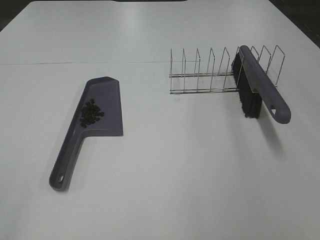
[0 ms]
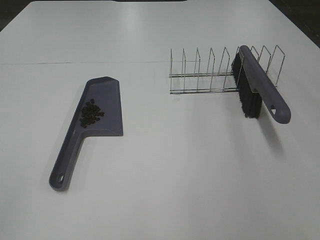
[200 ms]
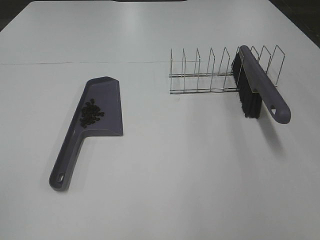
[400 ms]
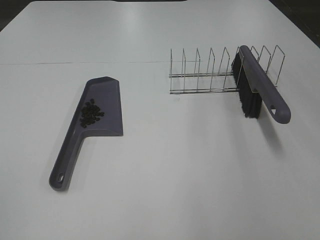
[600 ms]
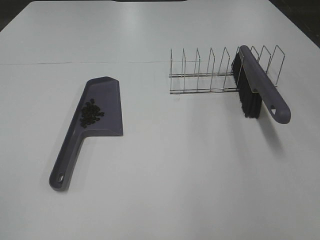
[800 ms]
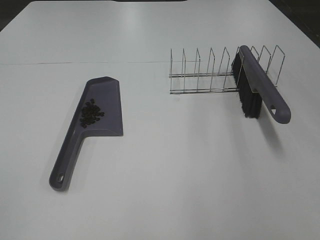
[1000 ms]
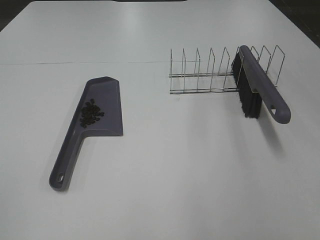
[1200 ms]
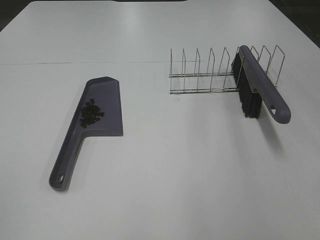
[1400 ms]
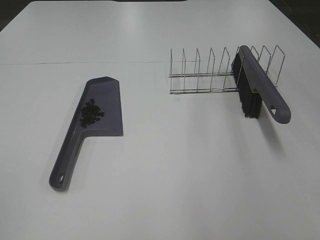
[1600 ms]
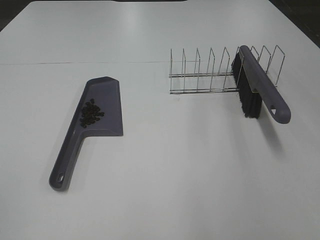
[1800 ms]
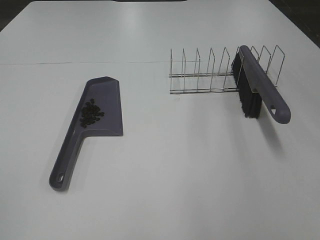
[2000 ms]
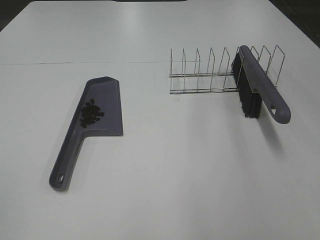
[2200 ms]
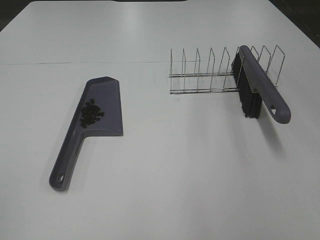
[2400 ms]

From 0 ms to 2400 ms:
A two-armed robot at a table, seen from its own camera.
Task of the whole recording: Sweep Coffee Bean.
From 1200 ms to 2400 ms: Neither gripper changes place.

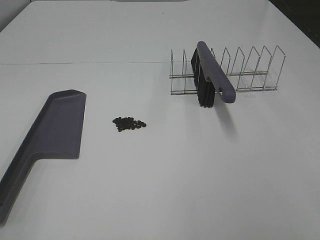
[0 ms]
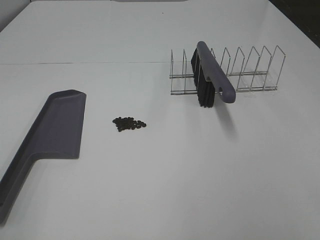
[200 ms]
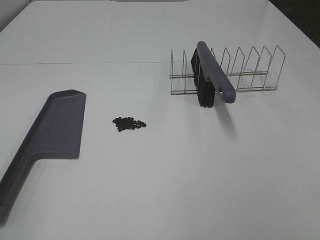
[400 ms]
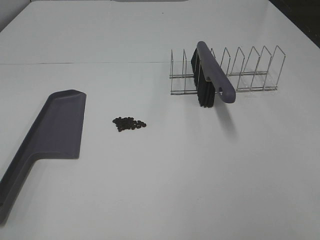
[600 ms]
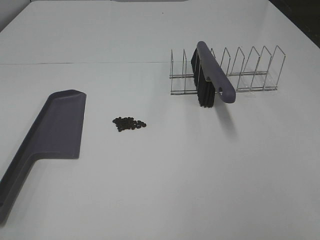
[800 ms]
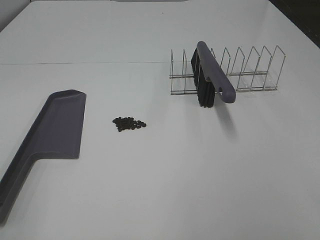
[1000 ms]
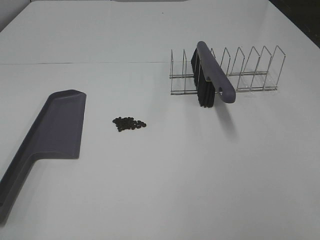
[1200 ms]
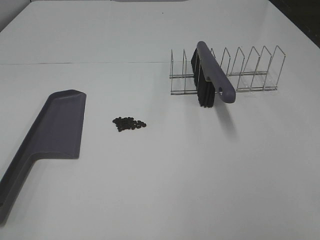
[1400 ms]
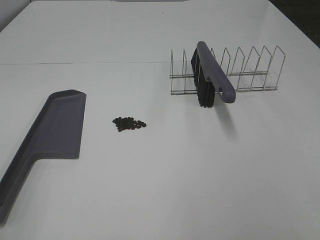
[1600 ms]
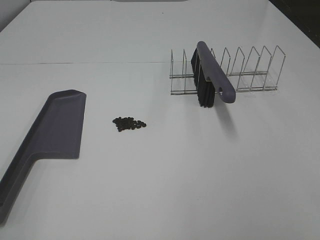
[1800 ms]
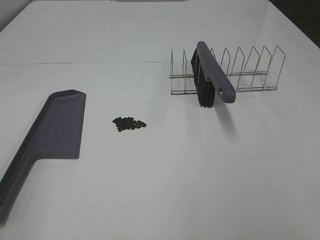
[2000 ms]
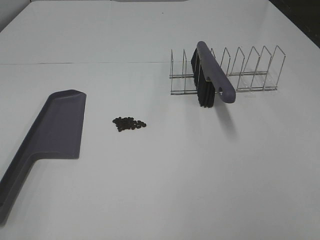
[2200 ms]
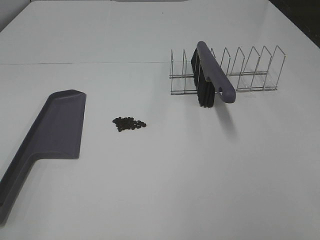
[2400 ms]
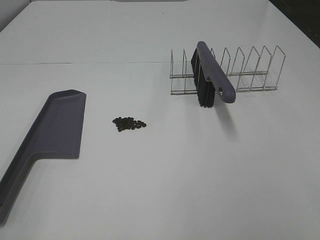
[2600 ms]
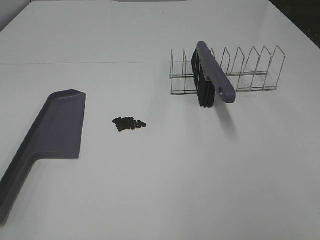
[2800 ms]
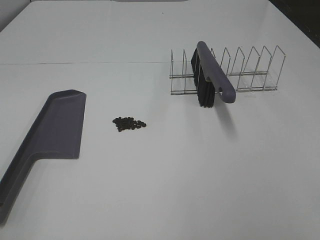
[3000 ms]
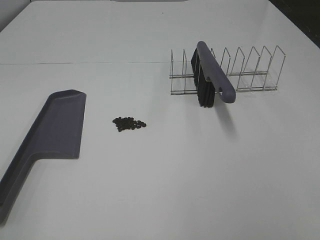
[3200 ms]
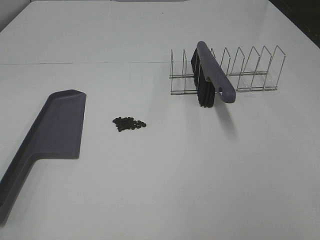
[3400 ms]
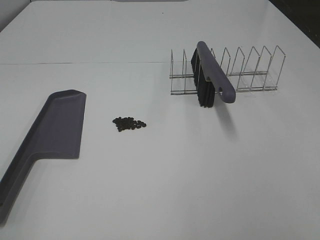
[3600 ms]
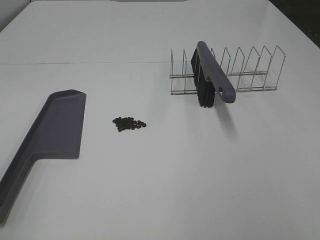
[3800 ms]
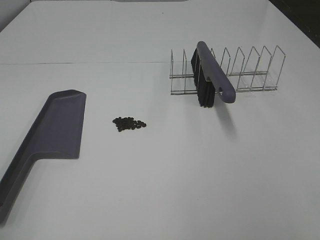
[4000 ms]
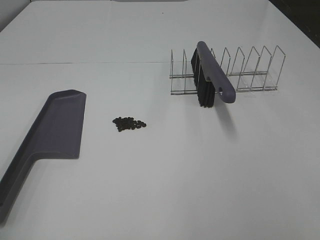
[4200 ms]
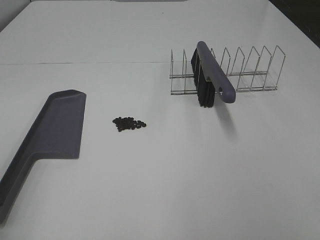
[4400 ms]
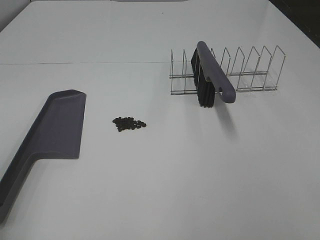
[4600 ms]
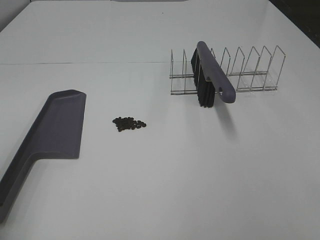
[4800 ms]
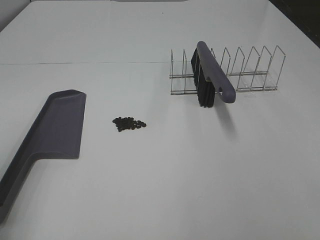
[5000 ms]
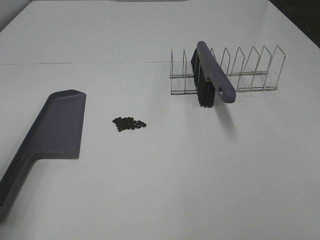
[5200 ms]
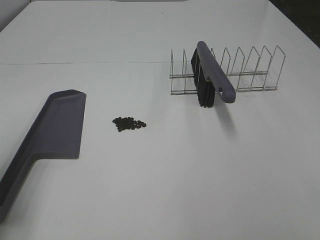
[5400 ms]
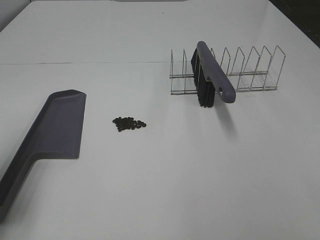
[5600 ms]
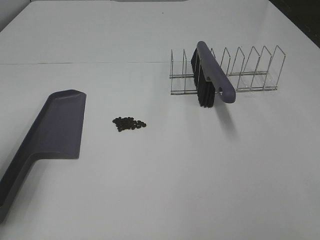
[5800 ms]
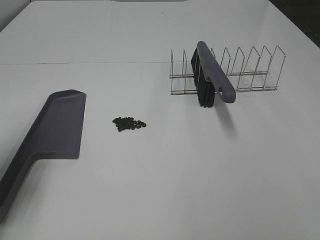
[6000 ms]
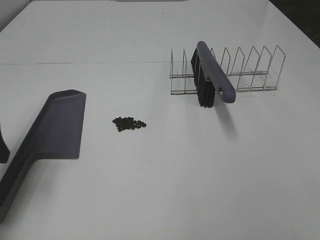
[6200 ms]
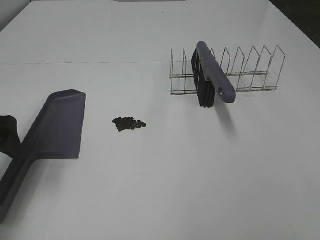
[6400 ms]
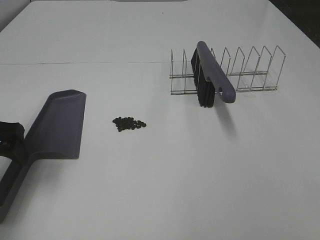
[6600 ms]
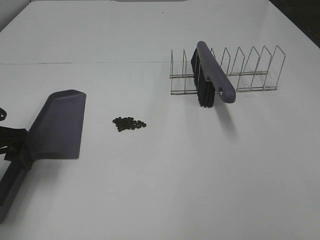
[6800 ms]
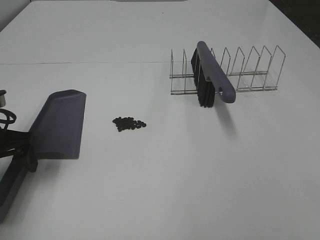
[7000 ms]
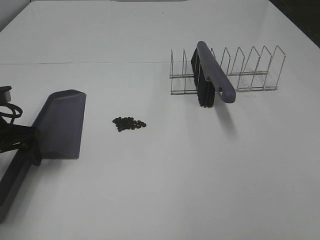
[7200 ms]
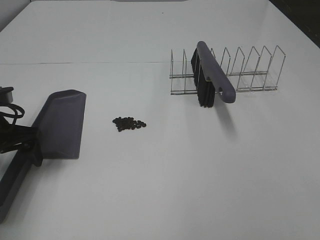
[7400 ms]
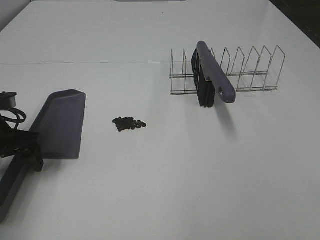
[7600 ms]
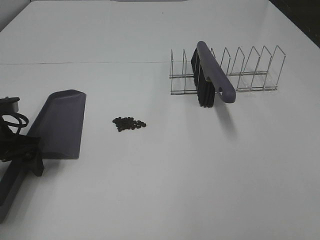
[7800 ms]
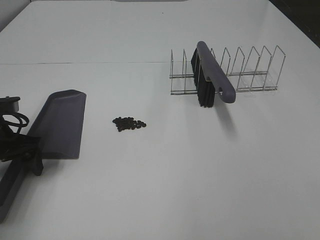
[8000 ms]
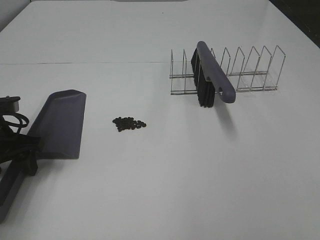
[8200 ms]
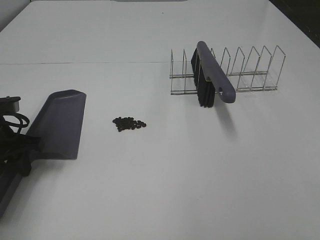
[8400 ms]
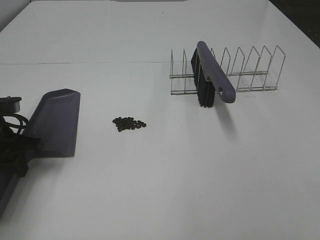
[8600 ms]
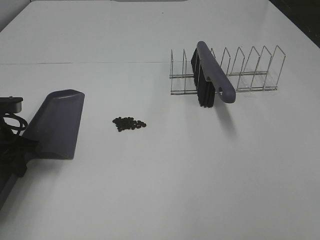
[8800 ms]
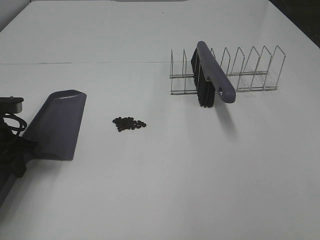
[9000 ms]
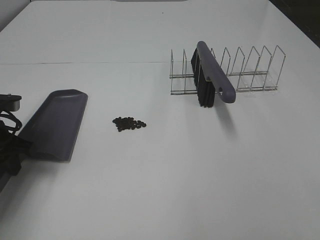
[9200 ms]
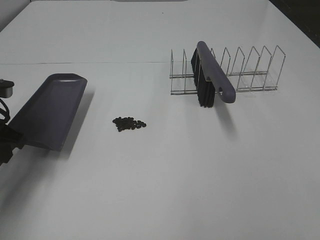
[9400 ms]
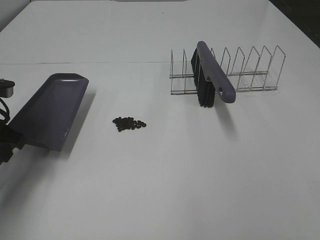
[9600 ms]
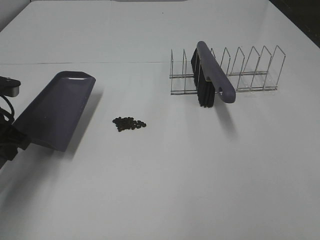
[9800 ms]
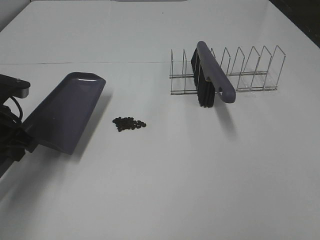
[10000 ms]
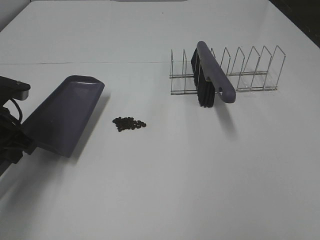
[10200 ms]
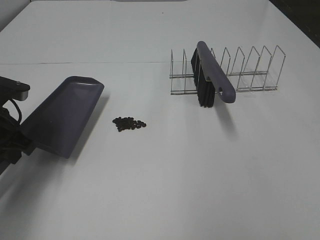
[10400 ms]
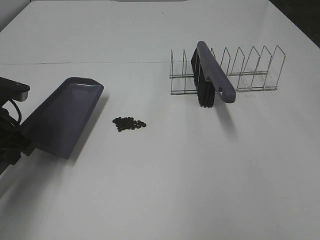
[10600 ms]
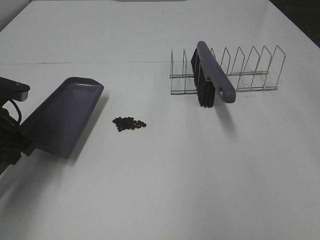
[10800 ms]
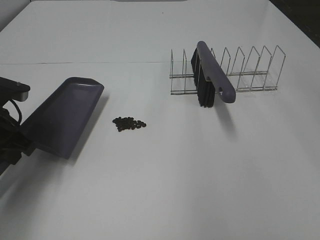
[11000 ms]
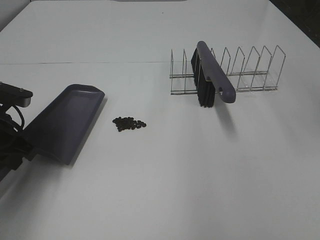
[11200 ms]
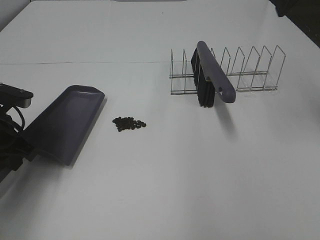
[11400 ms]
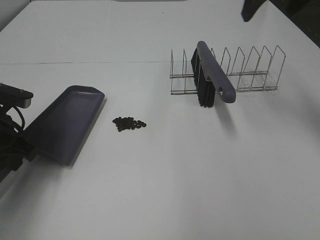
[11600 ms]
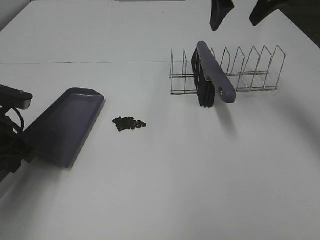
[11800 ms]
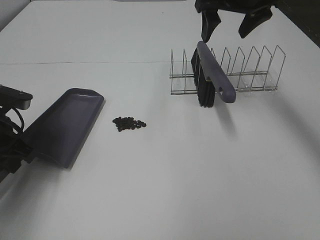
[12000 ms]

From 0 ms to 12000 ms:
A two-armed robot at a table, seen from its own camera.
Task of the whole recording: Sweep Coffee Bean.
Step, from 0 ms to 8600 ms: Left hand: grab the dustpan.
From 0 ms to 3000 ms: Both grippers stay about where they are.
From 4400 ms to 6000 ms: The left gripper travels forward and downward by some 20 cm.
From 6000 ms to 7600 ms: The left gripper moves downward and forward, approximately 10 cm.
From 7600 ms to 9000 ms: The left gripper closes its fingers.
From 10400 ms to 12000 ms: The right gripper is displaced forward by approximately 35 cm.

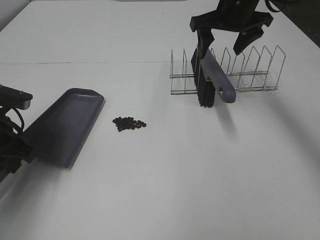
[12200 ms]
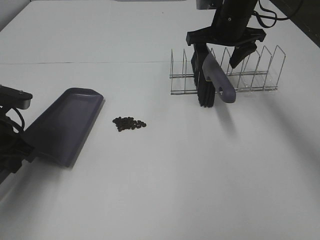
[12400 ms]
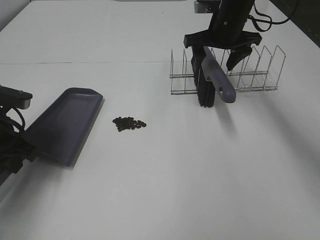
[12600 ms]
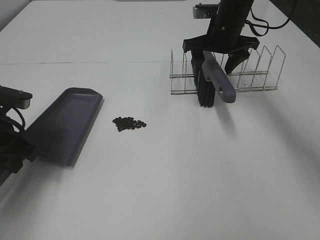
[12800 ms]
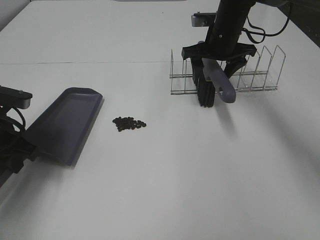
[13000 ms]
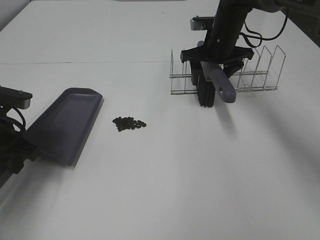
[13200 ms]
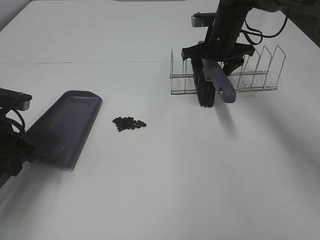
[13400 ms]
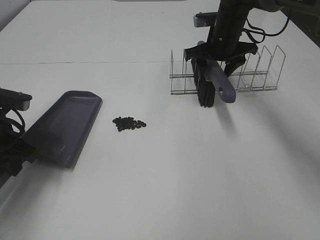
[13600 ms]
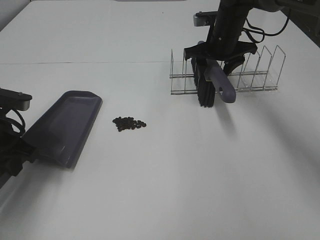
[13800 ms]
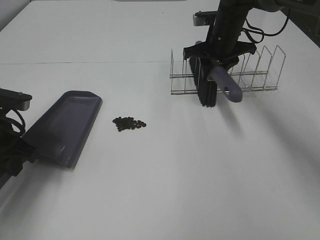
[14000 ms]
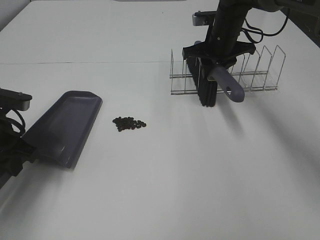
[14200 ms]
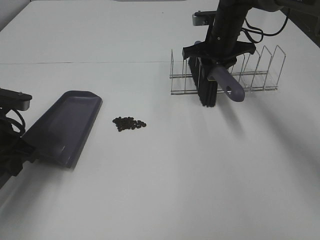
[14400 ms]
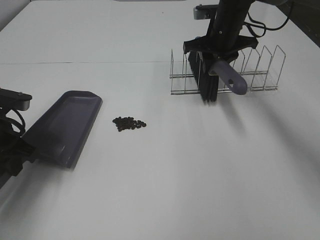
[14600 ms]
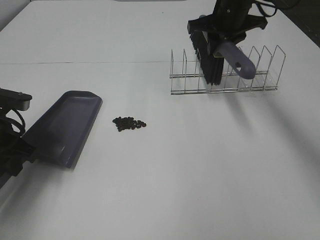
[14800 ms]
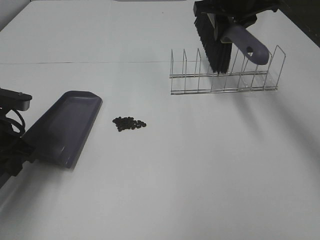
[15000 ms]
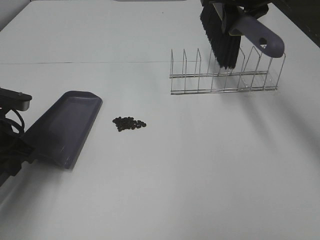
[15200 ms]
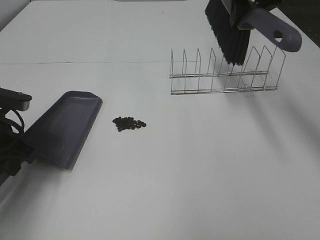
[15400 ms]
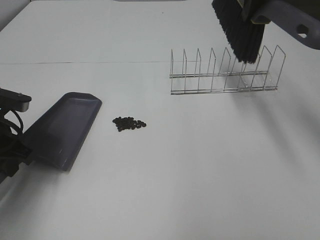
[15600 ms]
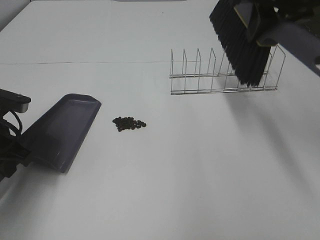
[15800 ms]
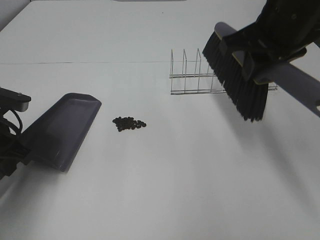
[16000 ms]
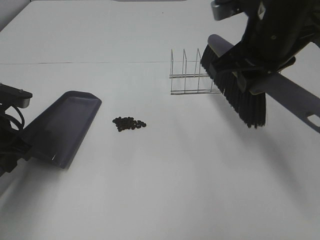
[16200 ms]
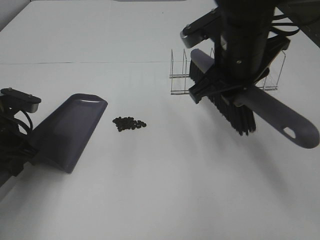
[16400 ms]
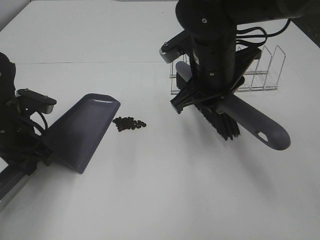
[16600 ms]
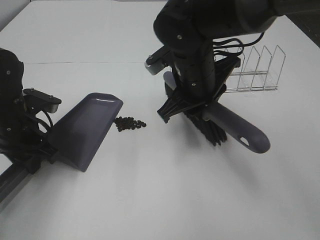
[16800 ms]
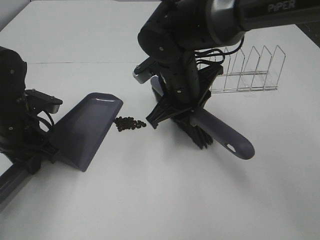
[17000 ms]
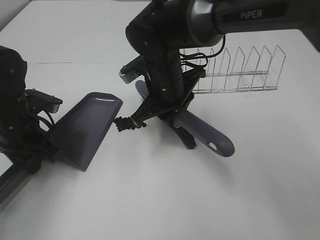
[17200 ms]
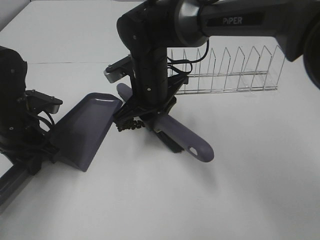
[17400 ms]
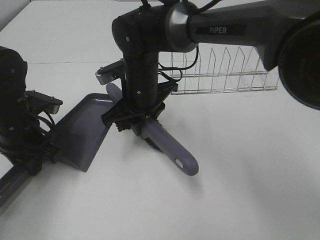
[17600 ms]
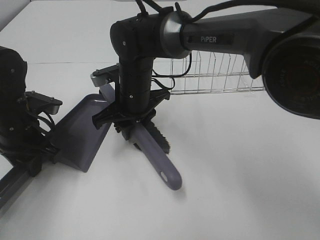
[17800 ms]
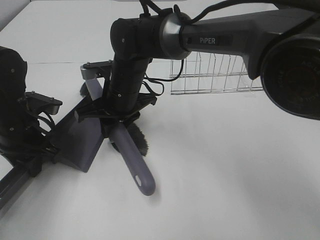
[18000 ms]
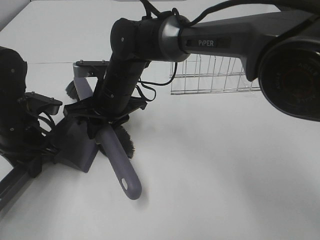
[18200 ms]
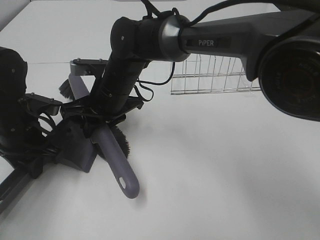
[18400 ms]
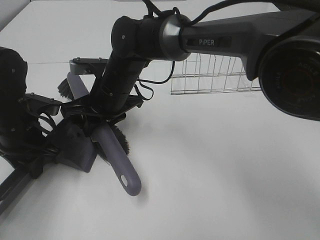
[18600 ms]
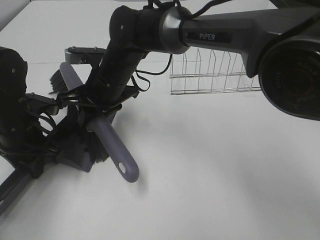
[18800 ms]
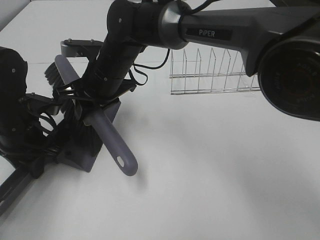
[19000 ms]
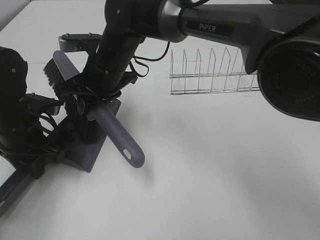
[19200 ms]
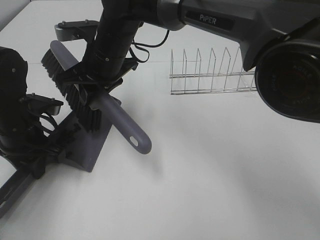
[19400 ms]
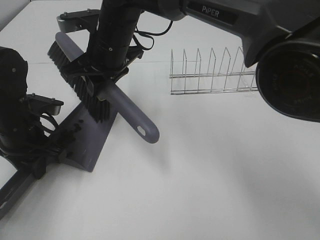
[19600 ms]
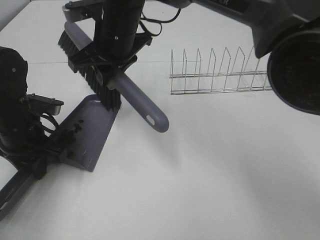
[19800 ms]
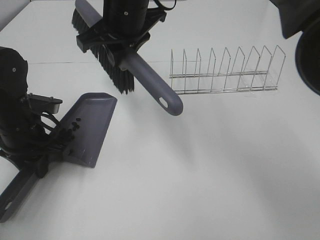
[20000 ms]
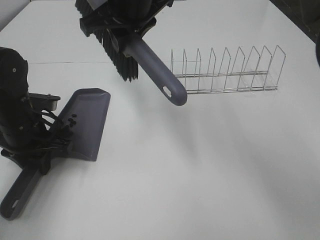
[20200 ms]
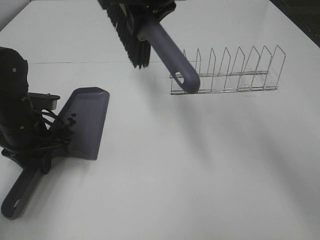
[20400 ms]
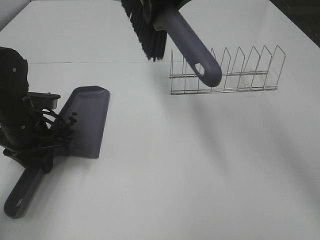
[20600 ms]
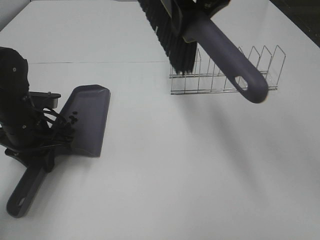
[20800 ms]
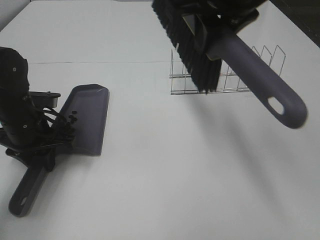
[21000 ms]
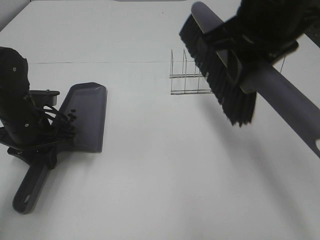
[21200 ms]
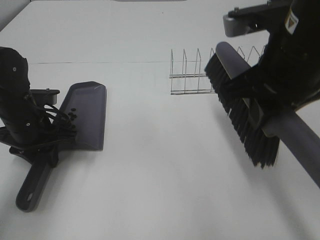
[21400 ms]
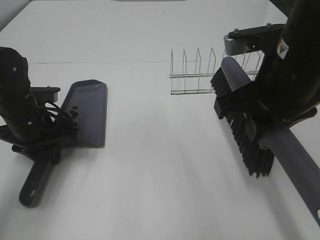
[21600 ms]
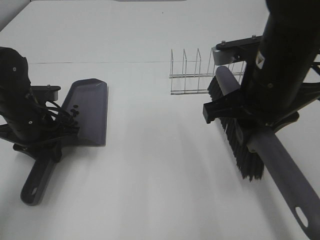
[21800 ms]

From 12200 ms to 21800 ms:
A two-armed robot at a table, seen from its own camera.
Task of the whole recording: Sweep Coffee Bean.
Step, from 12200 ms to 14400 ms: Right hand:grab the broom.
Step, from 14600 ms to 19200 ms: Right hand:sweep the coffee beans into the dustpan.
From 12200 ms to 13800 ms: The right gripper travels downward by roughly 10 cm, and closes its fingers.
From 13800 ms to 15400 ms: The right gripper is displaced upward and backward by approximately 20 cm, and closes.
From 15400 ms to 17000 ms: The right gripper travels downward, to the left and backward by about 25 cm.
From 17000 ms to 18600 ms: The right gripper travels to the left by roughly 10 cm.
From 18600 ms to 20200 ms: The right gripper shifts roughly 15 cm upward.
From 20200 ms to 21800 ms: The right gripper goes roughly 20 cm to the right and backward.
